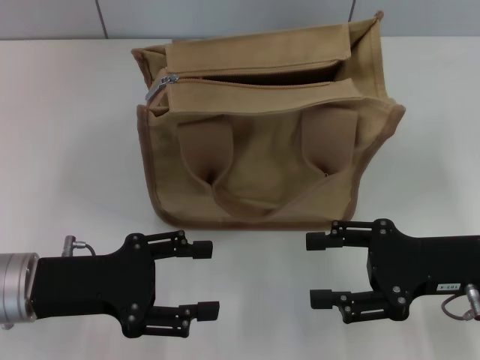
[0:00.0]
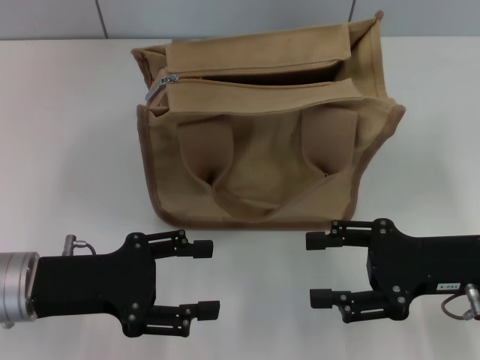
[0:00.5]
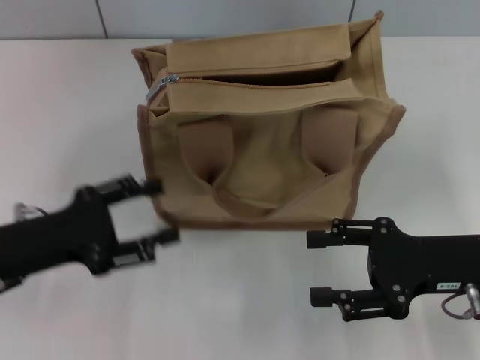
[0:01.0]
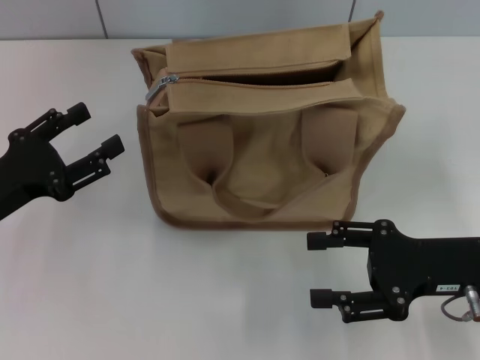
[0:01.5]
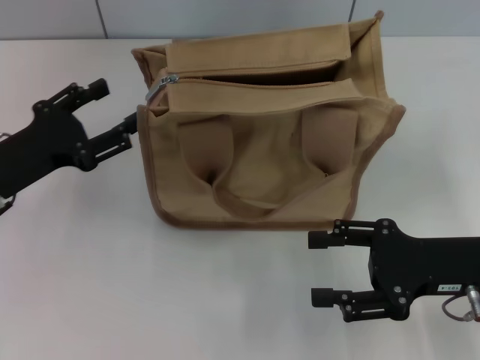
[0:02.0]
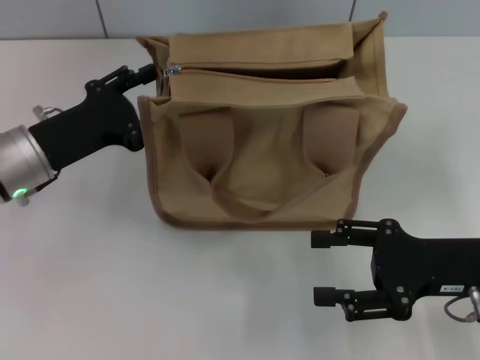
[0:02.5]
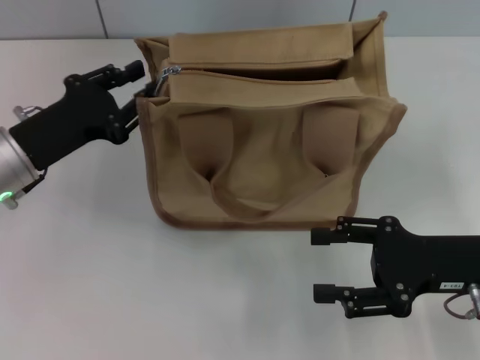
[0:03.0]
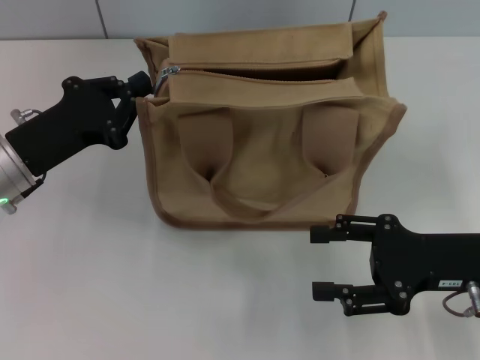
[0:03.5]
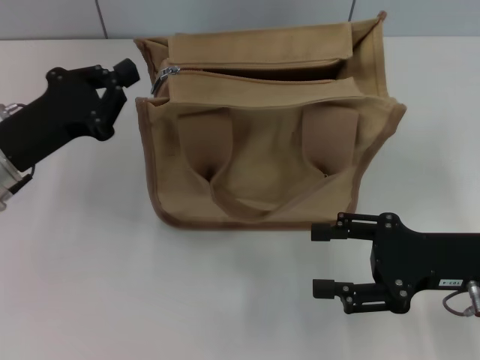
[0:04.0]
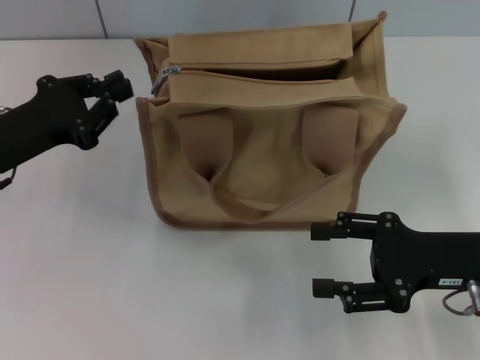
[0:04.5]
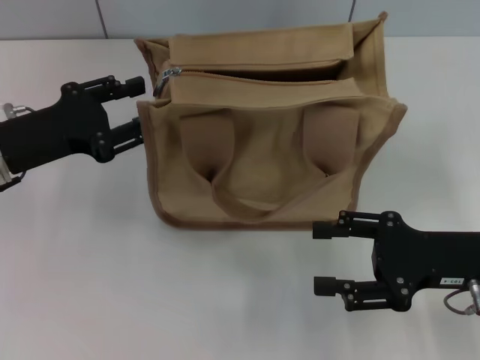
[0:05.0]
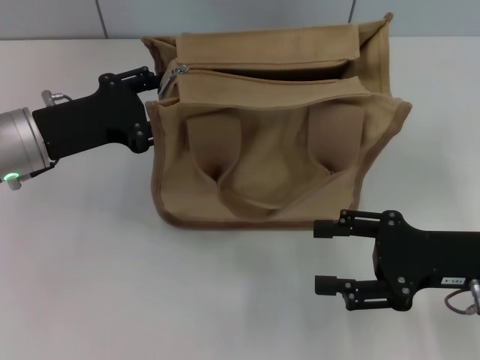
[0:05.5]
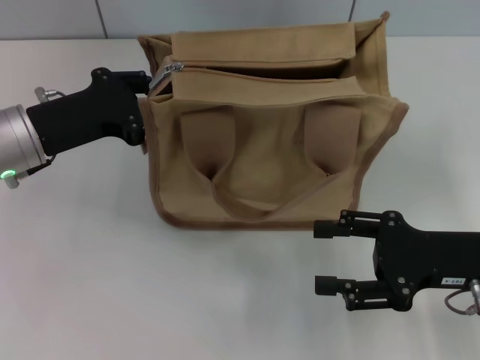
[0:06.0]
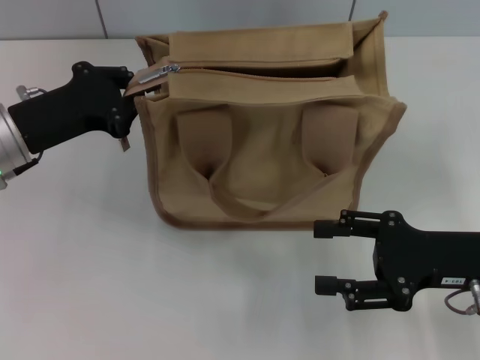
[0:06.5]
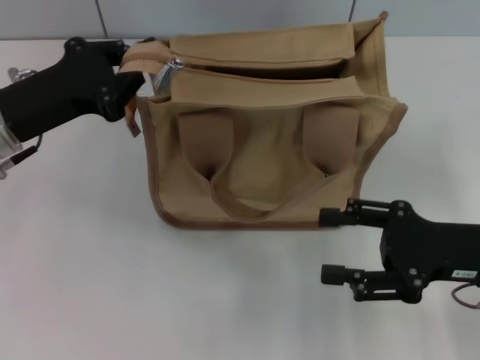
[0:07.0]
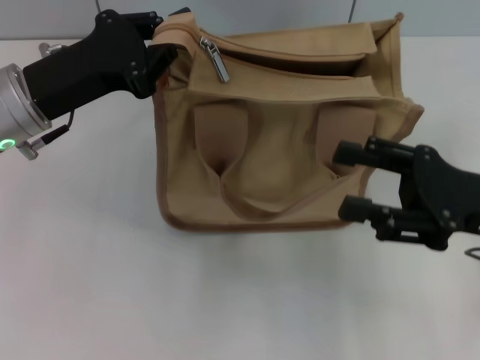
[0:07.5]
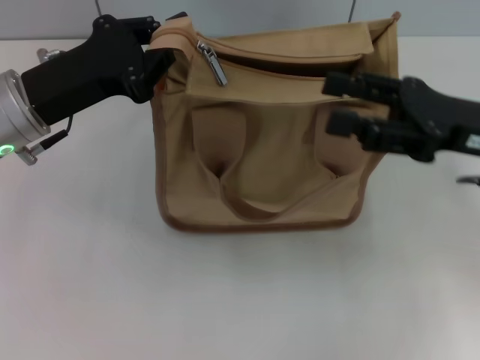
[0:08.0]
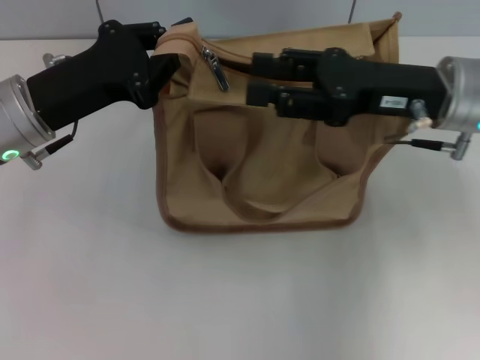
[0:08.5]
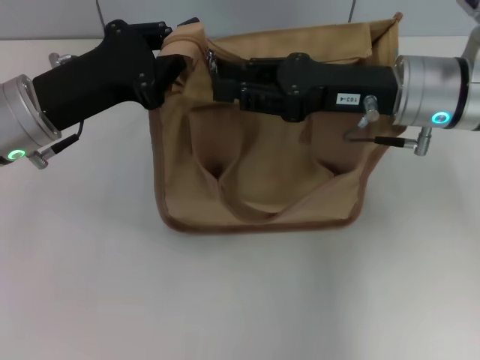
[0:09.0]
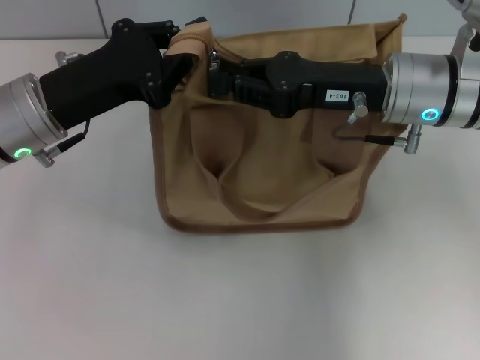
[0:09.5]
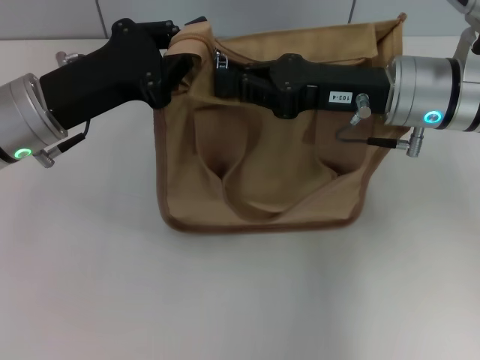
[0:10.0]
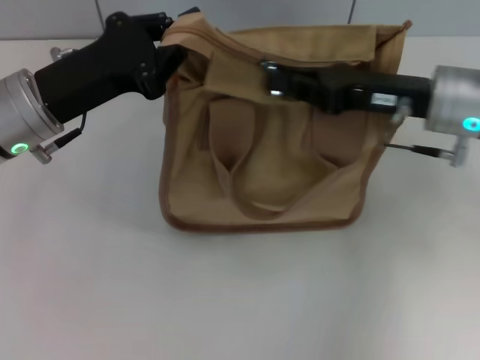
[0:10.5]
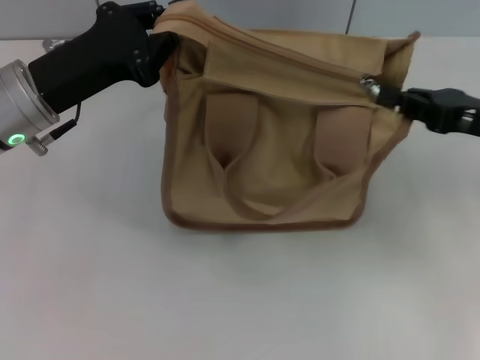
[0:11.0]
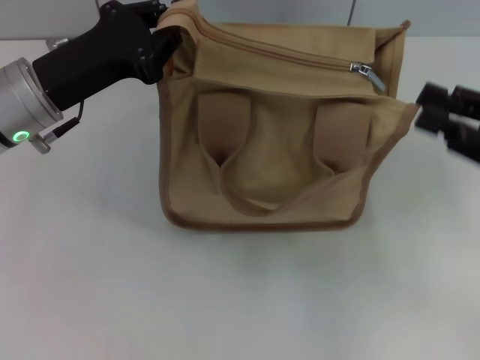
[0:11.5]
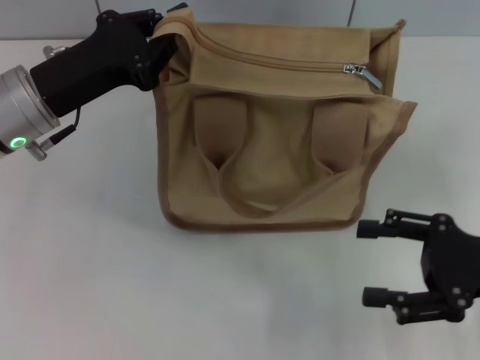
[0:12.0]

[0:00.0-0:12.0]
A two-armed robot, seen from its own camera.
Step, 0:00.0 to 0:11.0: Pull up the zipper with your right hand.
0:00.0 to 0:02.0: The left gripper moves forward, some 5 cm.
0:02.0 to 0:04.0: The left gripper closes.
0:04.0 to 0:06.0: The left gripper opens.
0:06.0 to 0:08.0: The left gripper closes, while the right gripper goes roughly 10 cm upward and forward.
0:08.0 to 0:10.0: The right gripper shifts about 10 cm to the left and forward, and closes up.
0:10.0 to 0:12.0: The right gripper goes about 20 cm backward, to the right and downward, and opens its fingers.

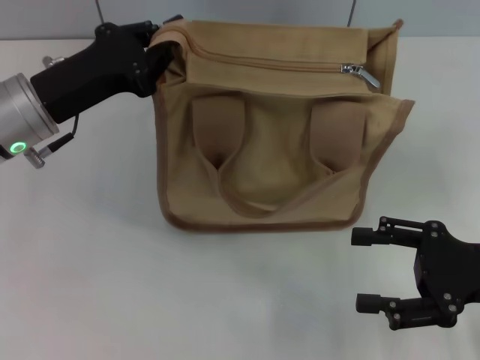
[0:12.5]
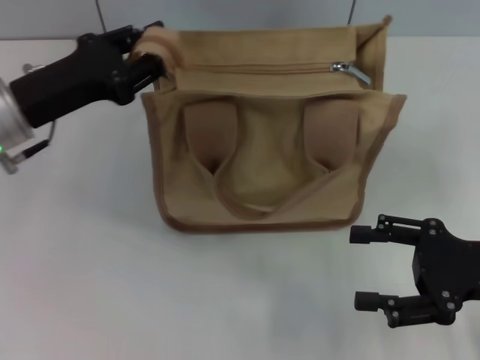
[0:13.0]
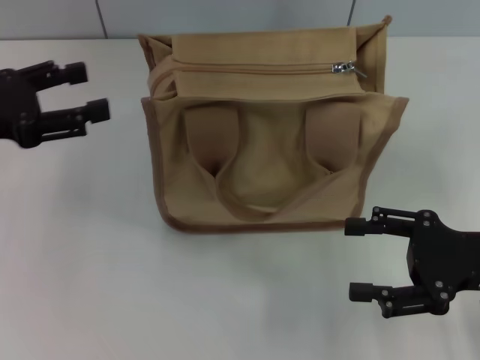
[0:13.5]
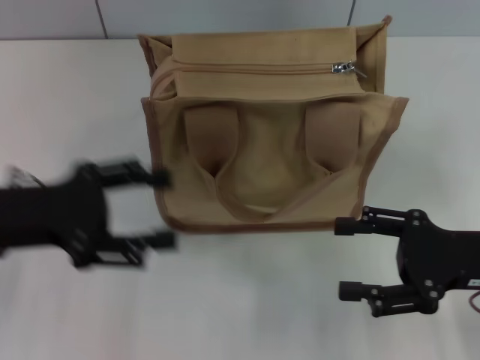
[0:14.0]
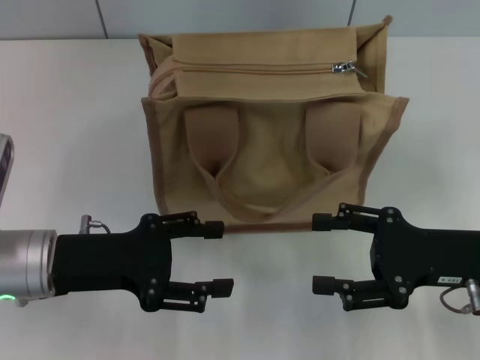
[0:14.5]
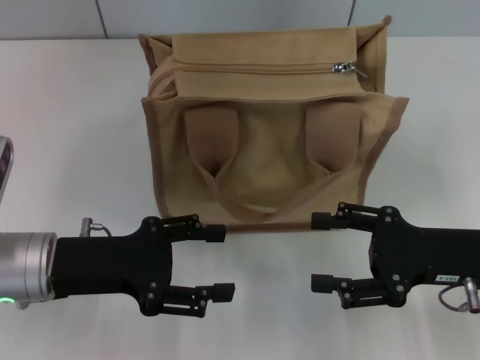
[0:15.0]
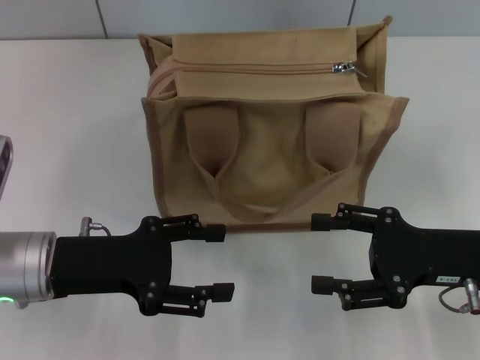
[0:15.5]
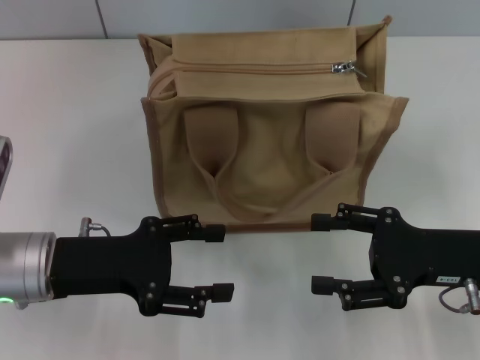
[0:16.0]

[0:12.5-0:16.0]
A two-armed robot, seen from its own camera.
0:12.5 to 0:14.5: The left gripper heads backward and downward, covering about 10 cm, goes to the left and returns, approximately 10 cm each way, and opens its fingers.
0:14.5 to 0:16.0: Both grippers stay put.

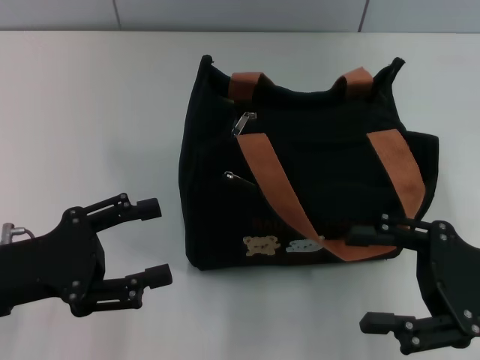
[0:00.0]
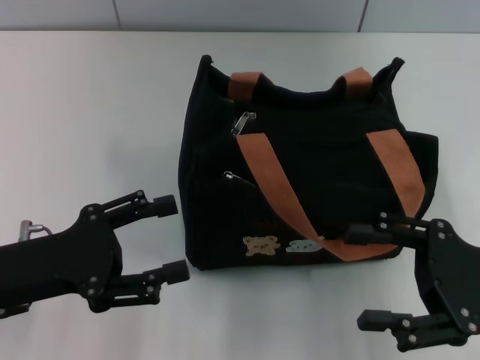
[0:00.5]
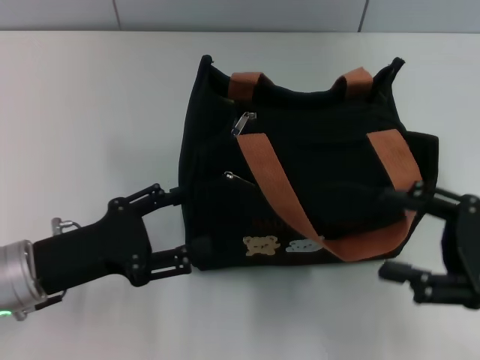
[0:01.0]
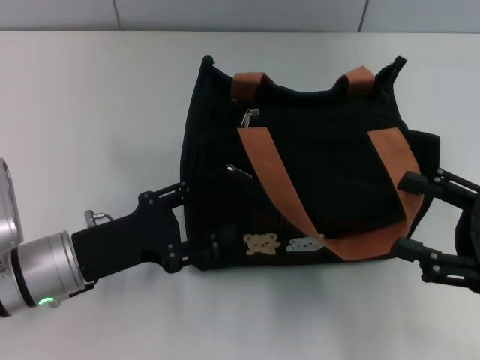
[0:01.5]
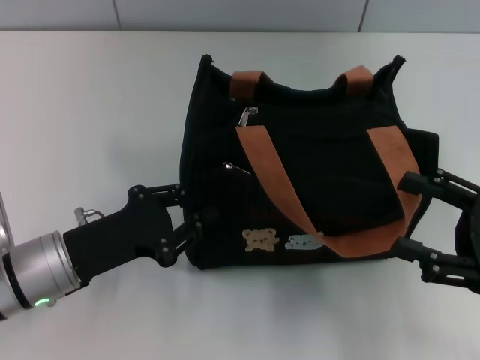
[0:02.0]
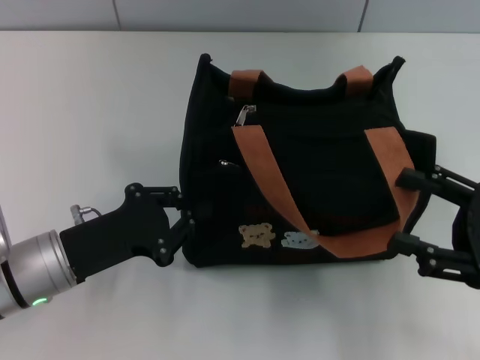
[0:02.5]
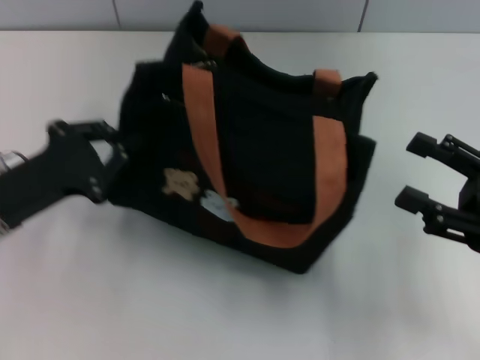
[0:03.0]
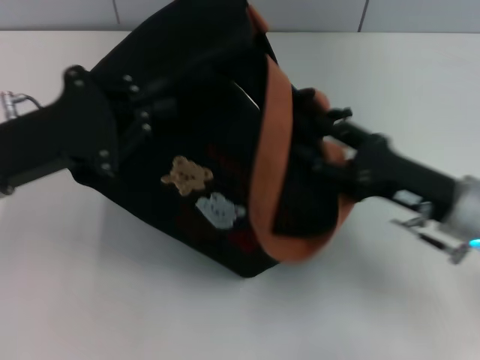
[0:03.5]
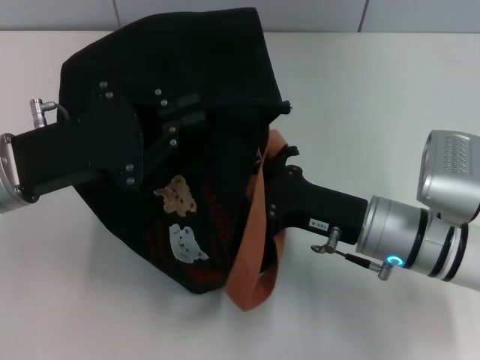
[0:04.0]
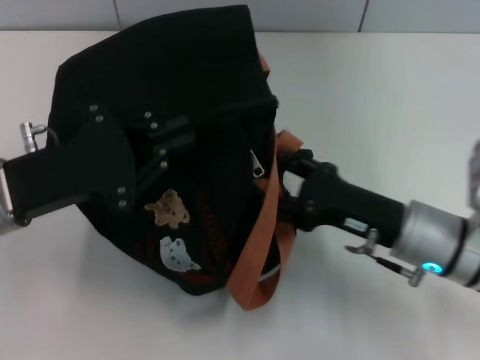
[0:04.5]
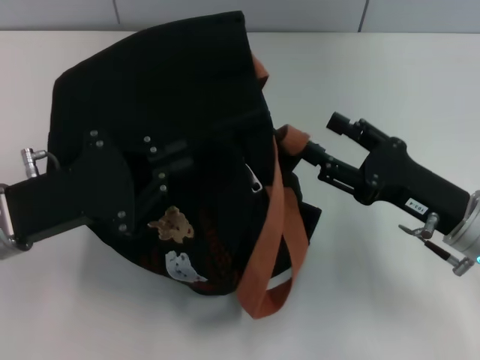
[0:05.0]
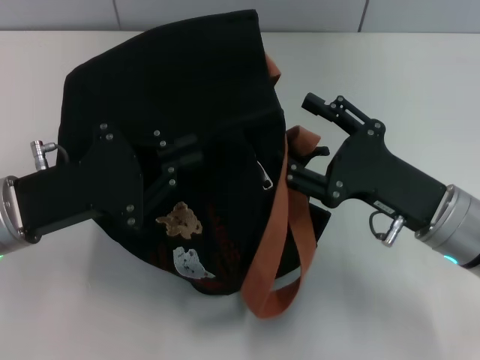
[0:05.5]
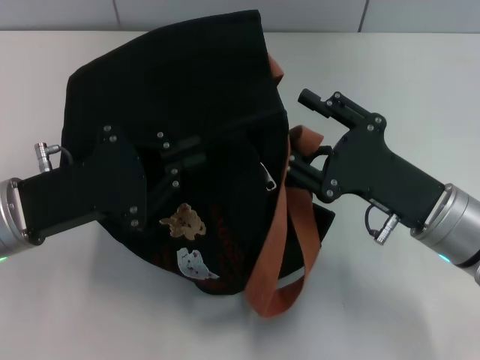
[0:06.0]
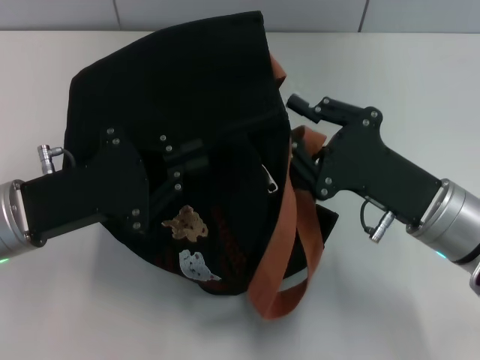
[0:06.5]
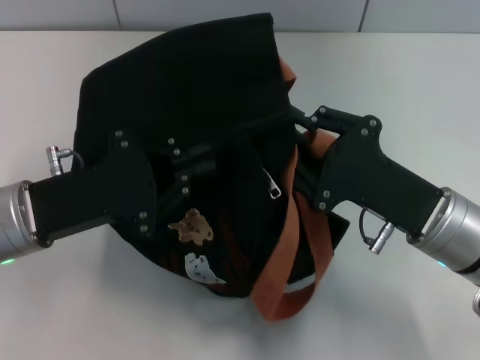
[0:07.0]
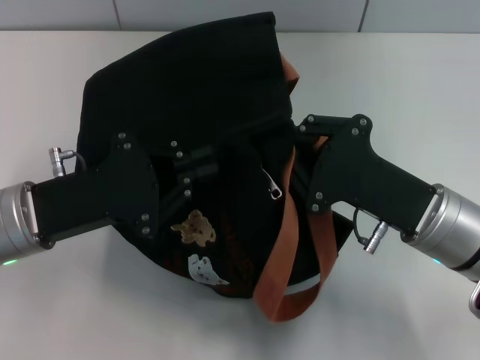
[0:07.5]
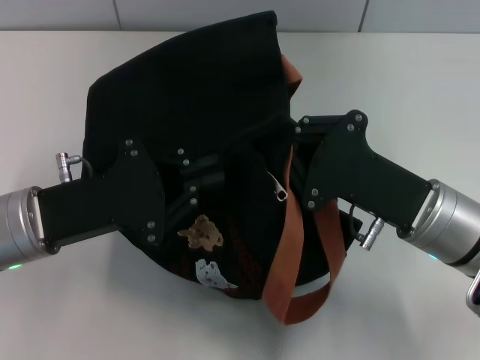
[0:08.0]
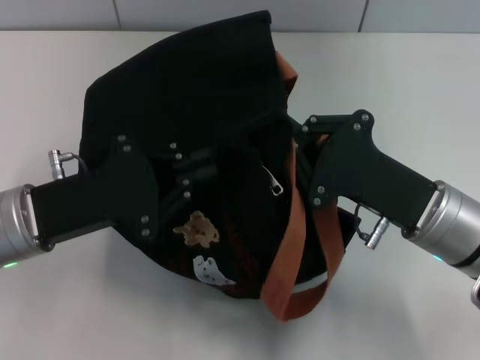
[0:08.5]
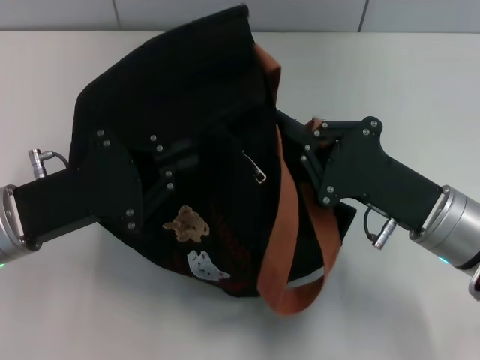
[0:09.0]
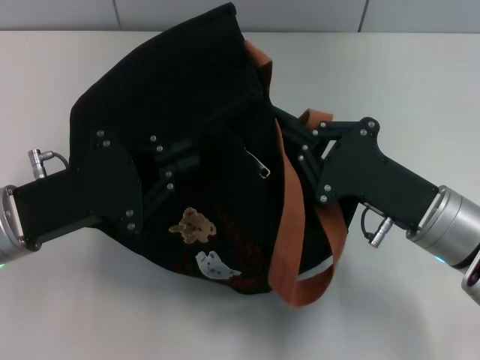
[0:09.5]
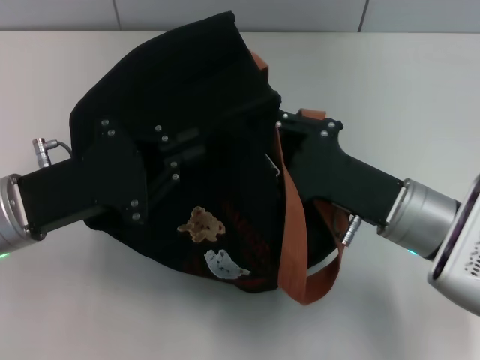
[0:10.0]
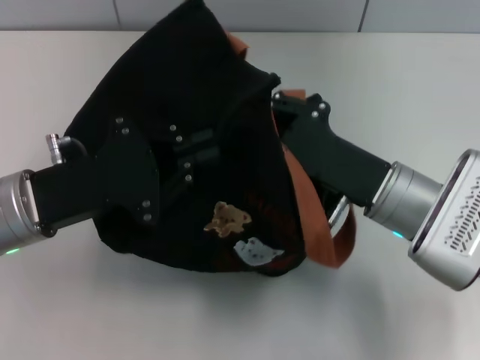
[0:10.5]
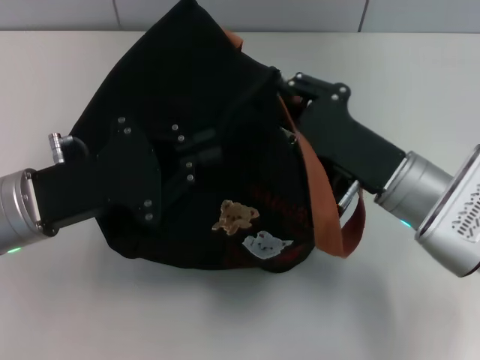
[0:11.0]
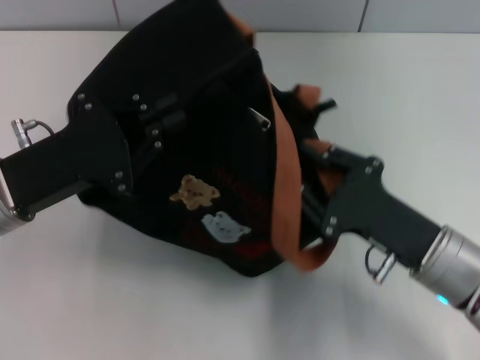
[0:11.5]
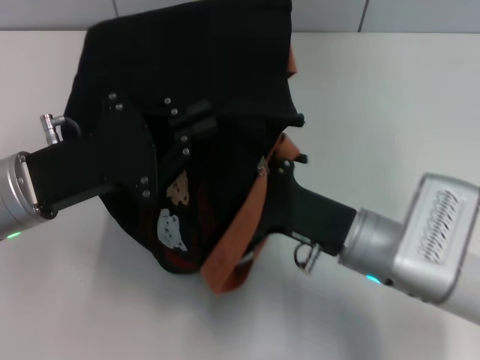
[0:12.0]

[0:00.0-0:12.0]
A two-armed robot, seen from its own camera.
0:00.0 to 0:02.0: The left gripper heads to the right, covering approximately 5 cm, and closes up.
0:02.0 to 0:04.0: The right gripper goes roughly 15 cm to the left; the left gripper moves upward, some 10 cm, and closes up.
0:06.0 to 0:08.0: The right gripper closes.
0:08.0 to 0:10.0: There are only small adjustments of the grippers.
